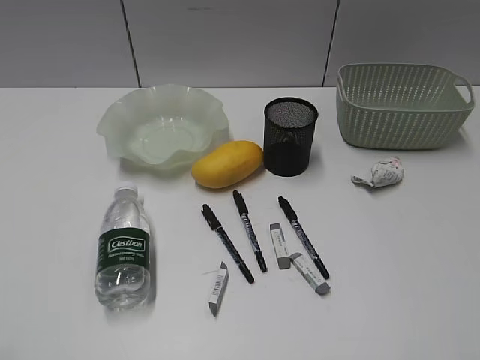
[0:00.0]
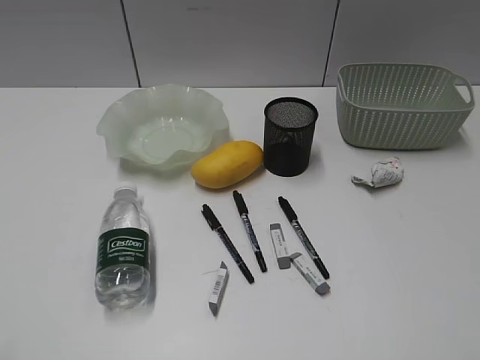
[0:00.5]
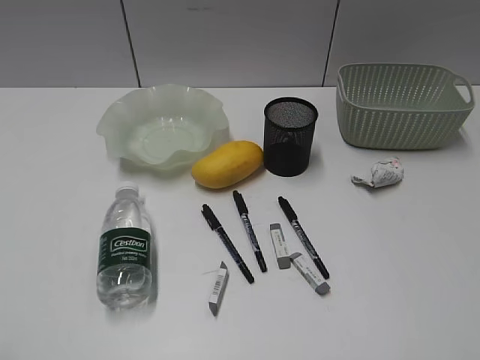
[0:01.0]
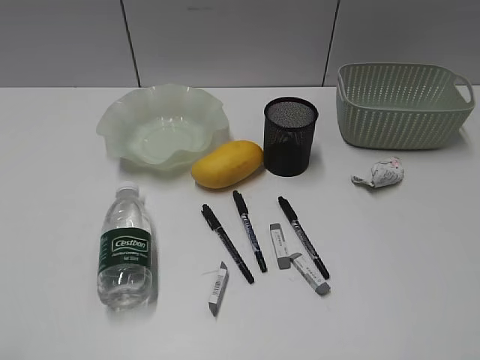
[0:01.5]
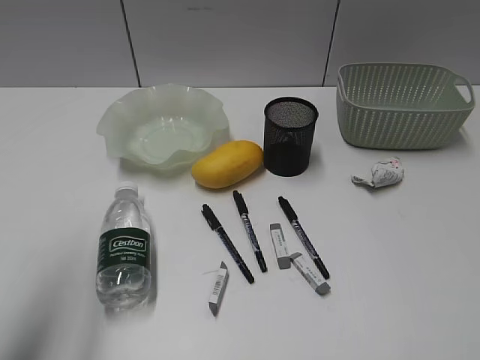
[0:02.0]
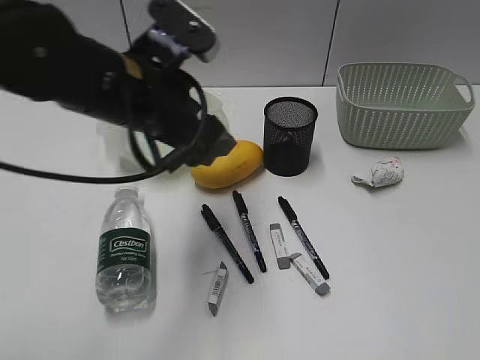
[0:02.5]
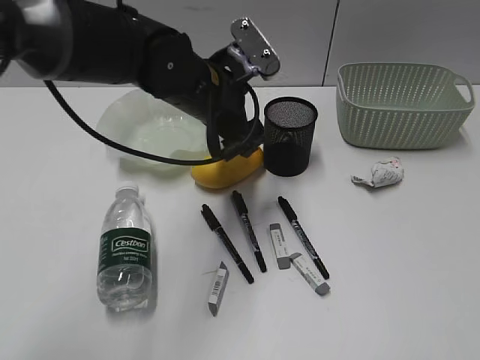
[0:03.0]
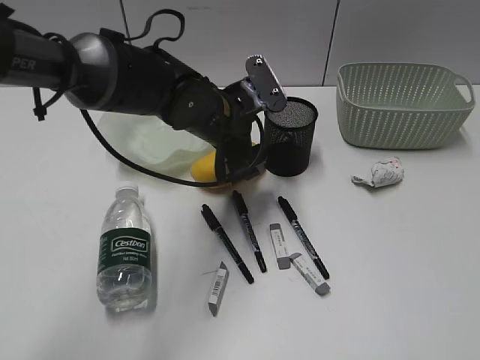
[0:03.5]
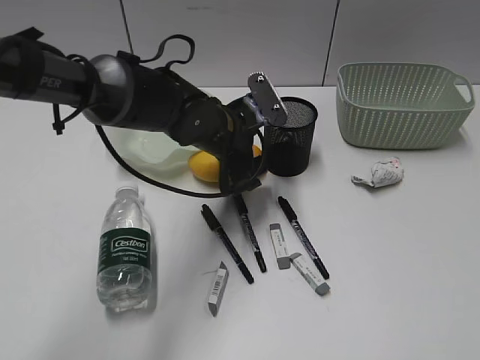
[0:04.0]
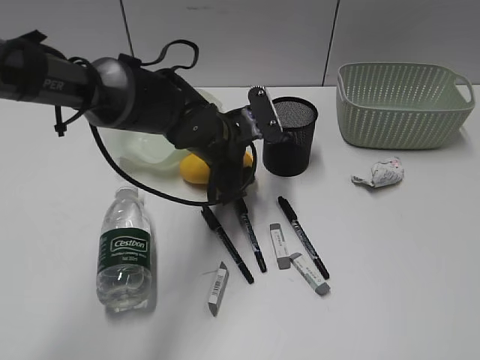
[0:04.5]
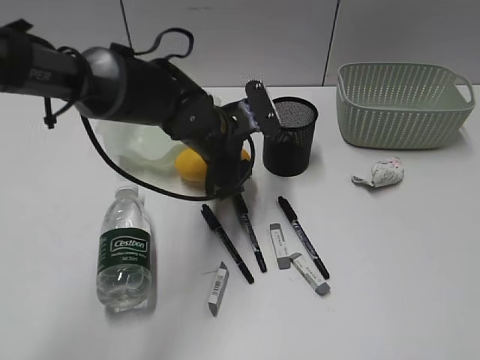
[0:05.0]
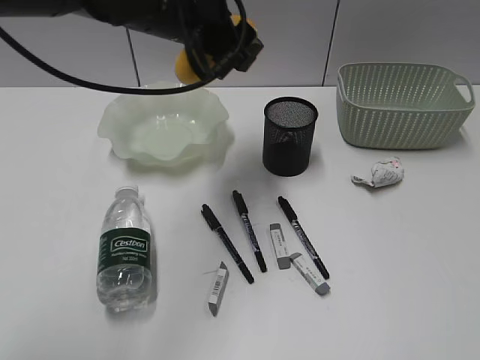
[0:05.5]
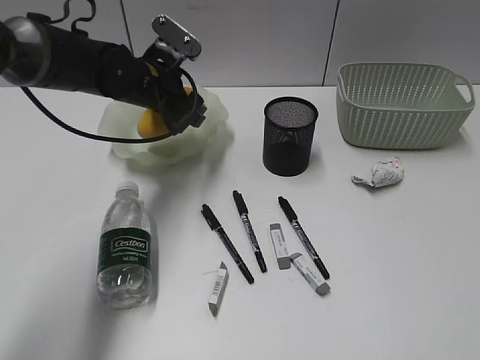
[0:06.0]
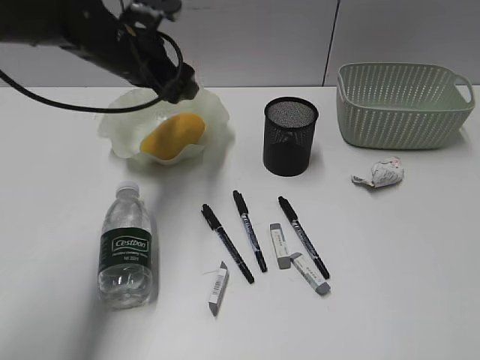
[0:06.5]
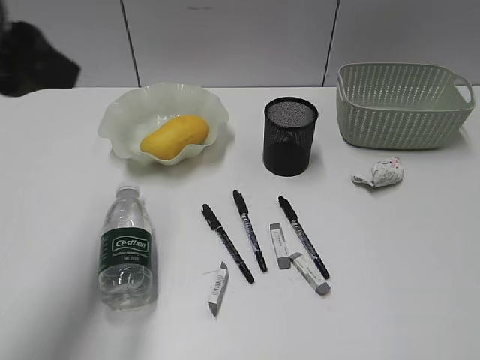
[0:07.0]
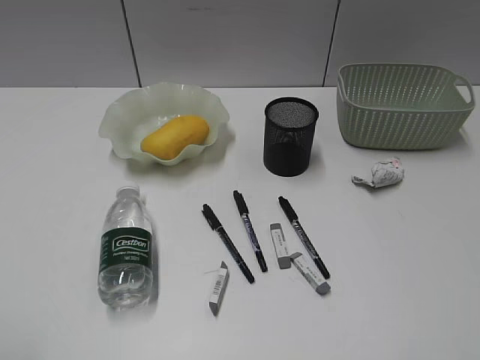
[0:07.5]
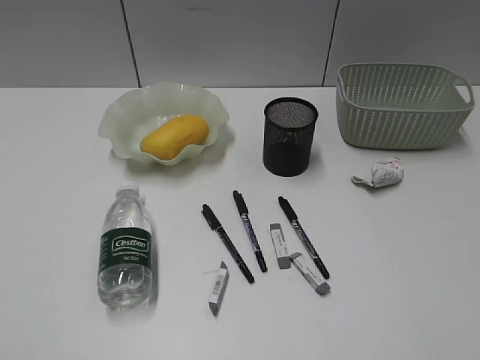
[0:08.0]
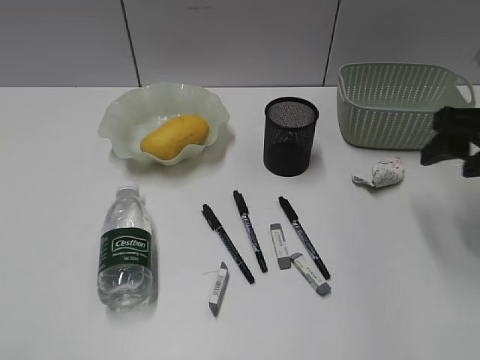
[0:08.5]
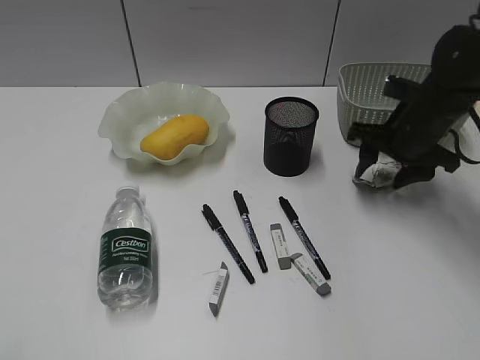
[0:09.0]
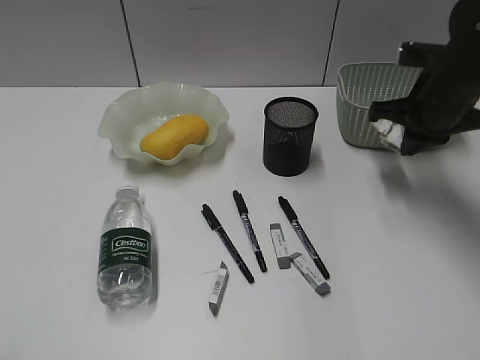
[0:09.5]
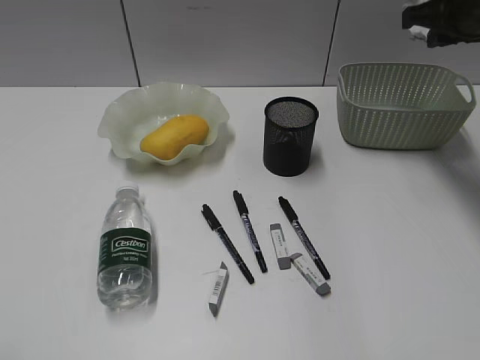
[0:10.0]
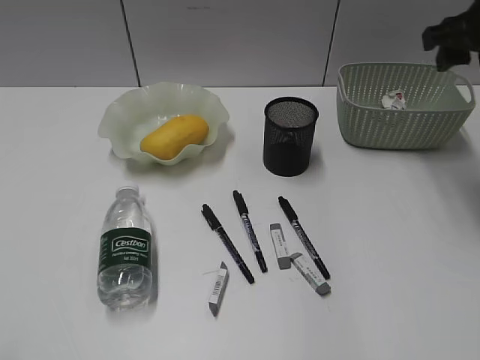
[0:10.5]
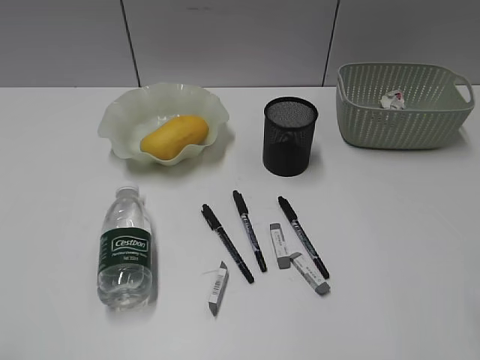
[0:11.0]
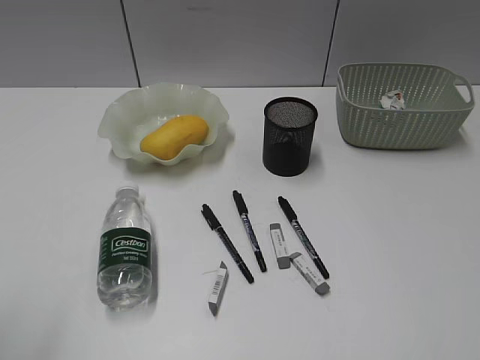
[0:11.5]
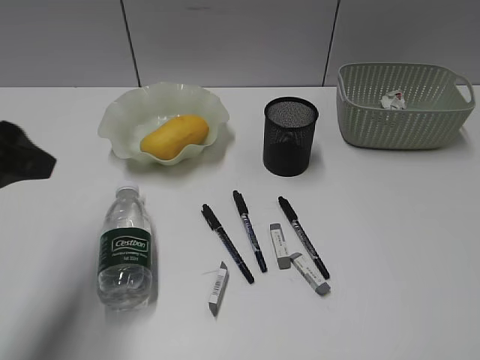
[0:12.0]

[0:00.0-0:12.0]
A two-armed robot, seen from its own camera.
Step, 0:02.0 to 0:04.5: Grasp the mango with left gripper.
Step, 0:05.0 to 0:06.0: Place the mango in the plate with left gripper.
Step, 0:06.5 to 0:09.0: Grasp the waste paper with right gripper.
Step, 0:09.5 to 0:10.0: Place the waste paper in the basket with right gripper.
0:02.0 to 0:04.0: The left gripper is displaced to the right, forward and downward by approximately 40 cm.
0:04.0 to 0:06.0: The left gripper is displaced to the left and forward by about 10 cm, and travels upward and back again, approximately 15 cm each way.
0:06.0 to 0:08.0: The left gripper moves backward and to the left, some 50 cm.
0:08.0 to 0:10.0: The right gripper shifts approximately 40 cm forward, and closes its fingers.
0:10.0 to 0:12.0: The left gripper shifts about 20 cm forward and to the right, while the right gripper goes roughly 40 cm backward, and opens its fingers.

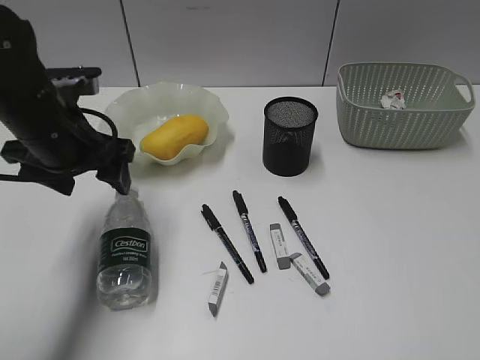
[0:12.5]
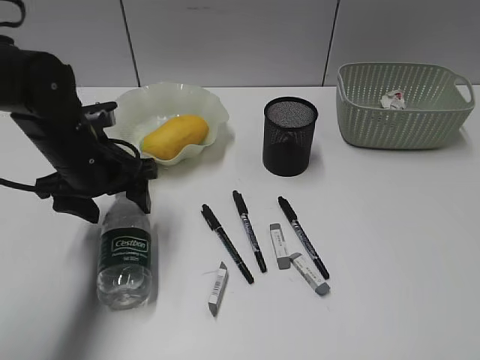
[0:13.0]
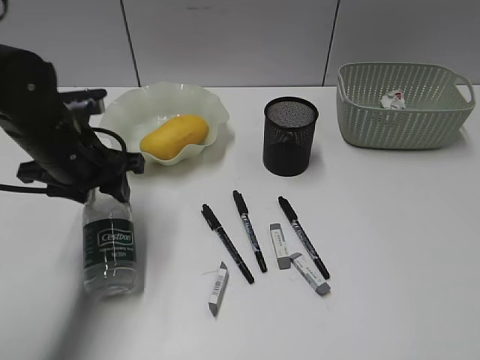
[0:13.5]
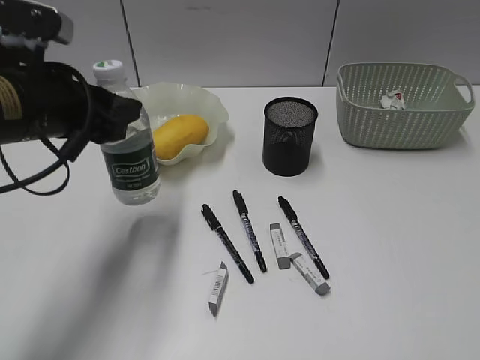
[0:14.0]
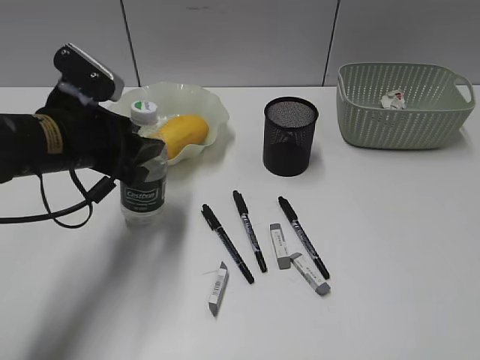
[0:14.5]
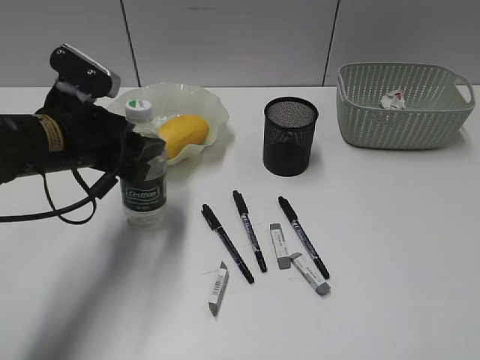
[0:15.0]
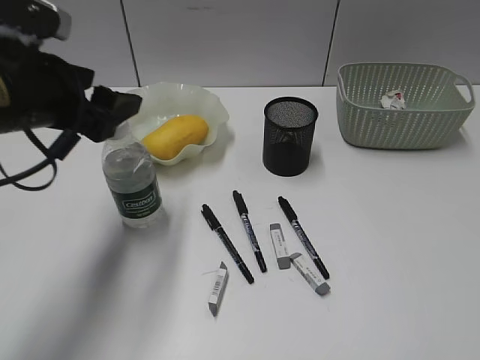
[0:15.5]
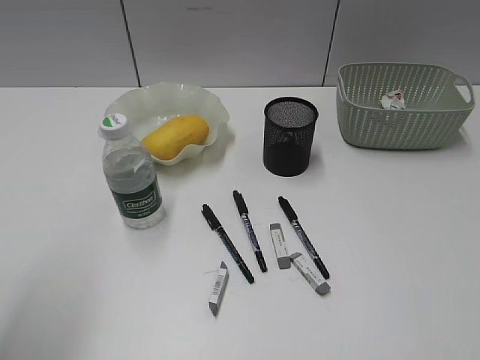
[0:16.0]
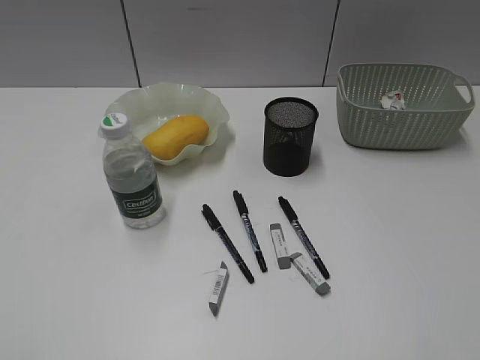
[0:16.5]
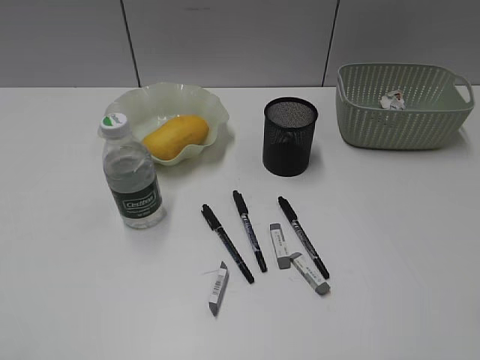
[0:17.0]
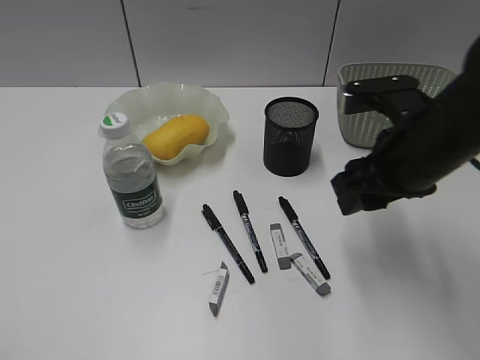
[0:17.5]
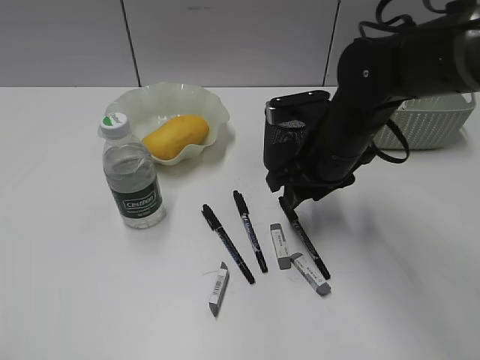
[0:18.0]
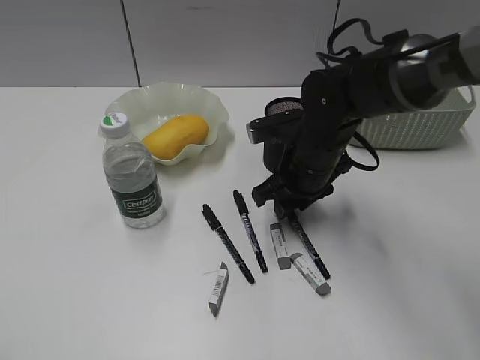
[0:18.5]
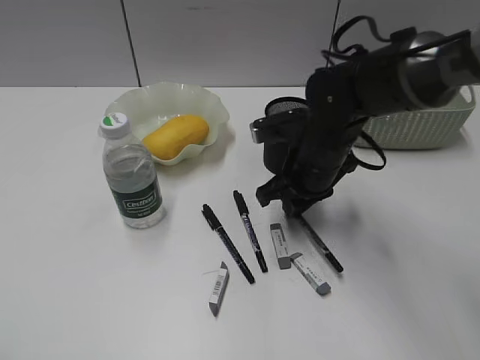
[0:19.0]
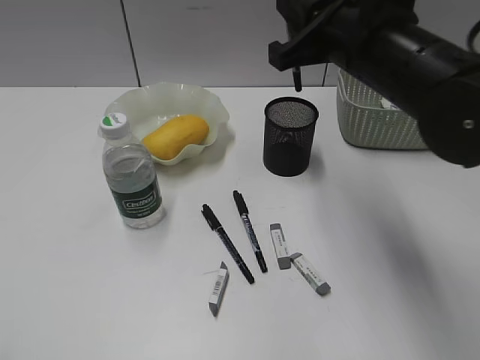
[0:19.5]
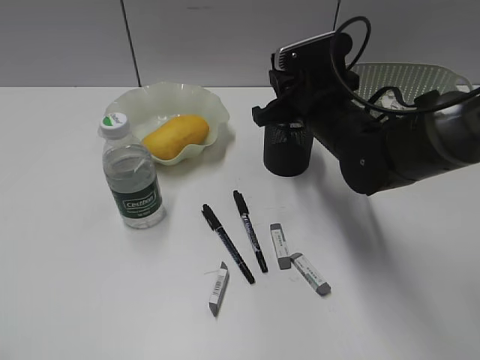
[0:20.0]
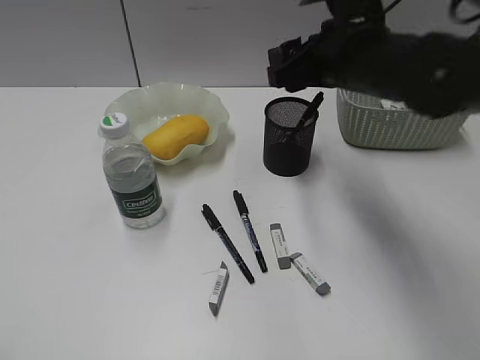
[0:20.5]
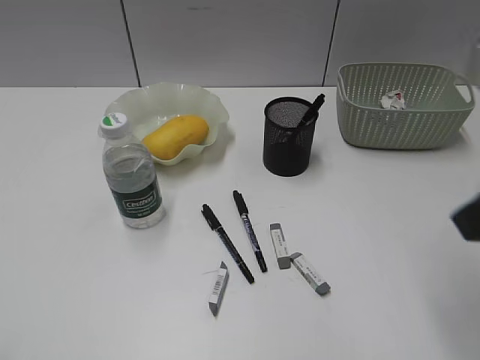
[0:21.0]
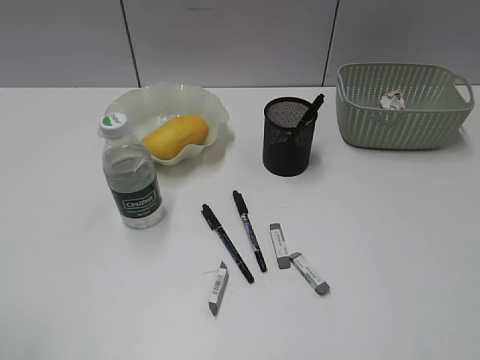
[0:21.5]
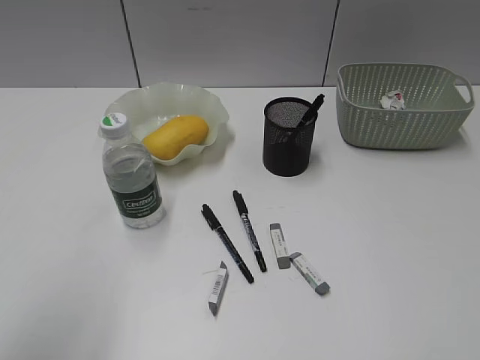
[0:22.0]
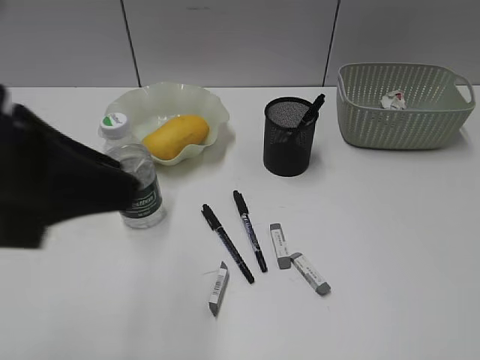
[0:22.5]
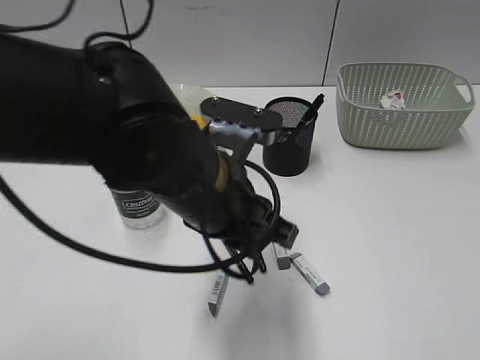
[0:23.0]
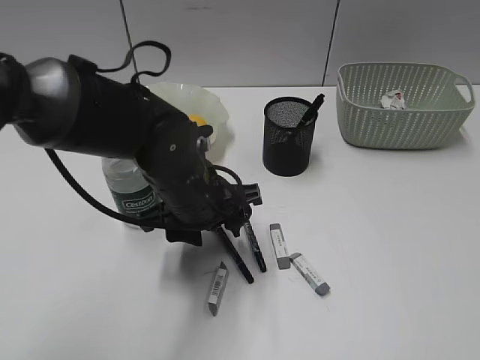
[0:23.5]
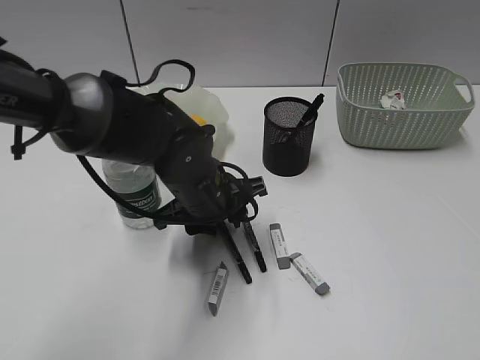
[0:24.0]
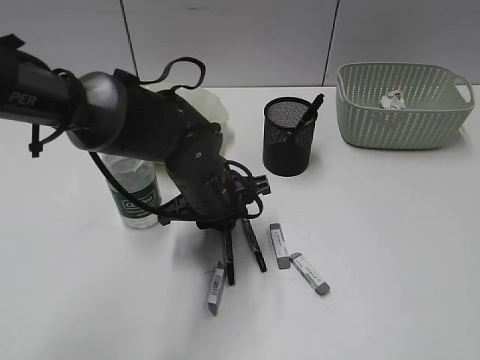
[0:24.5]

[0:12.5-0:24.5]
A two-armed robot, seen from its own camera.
Step, 0:13.5 to 0:15.0: Stand the bottle with left gripper.
Step, 0:15.5 to 0:18.5: Grasp the black pen with right gripper.
Step, 0:19.0 to 0:20.0: Place the black pen in pen holder with right gripper.
0:12.5 to 0:14.5: The left gripper swings up and down, some 10 cm each way, with 2 reversals, and closes up.
0:14.5 to 0:16.5: The left gripper goes some 35 cm backward and to the left.
0:16.5 to 0:18.5: The right gripper goes about 40 cm forward, to the left and downward.
0:18.5 to 0:20.5: The right gripper goes up and down, approximately 15 cm each way, reversing 2 times, and opens.
0:20.5 to 0:22.5: The right gripper travels backward and to the right by roughly 40 cm, and closes up. The left gripper goes approximately 20 cm to the right and forward.
0:22.5 to 0:24.5: The left gripper goes roughly 30 cm downward, forward and to the right, and opens, then closes again.

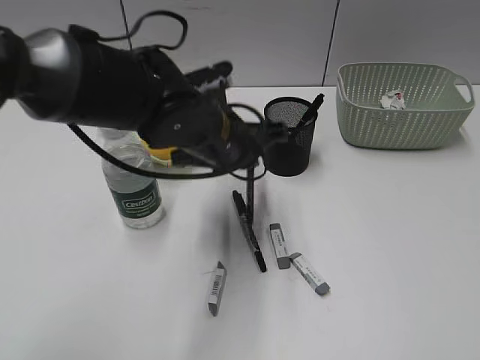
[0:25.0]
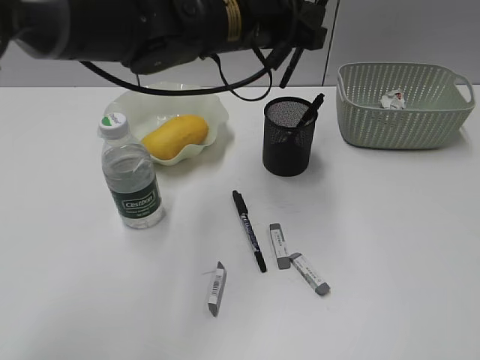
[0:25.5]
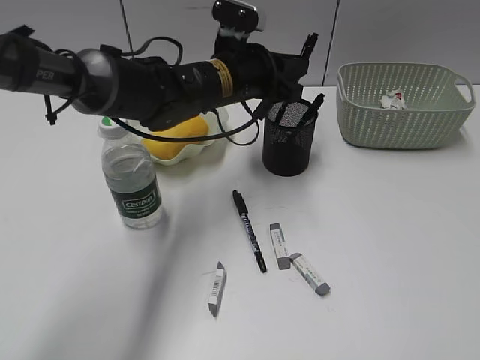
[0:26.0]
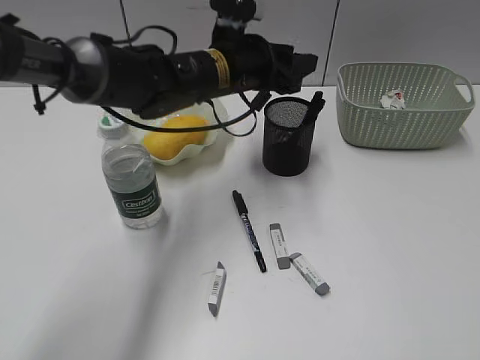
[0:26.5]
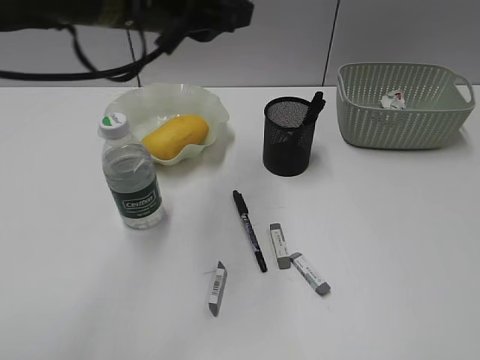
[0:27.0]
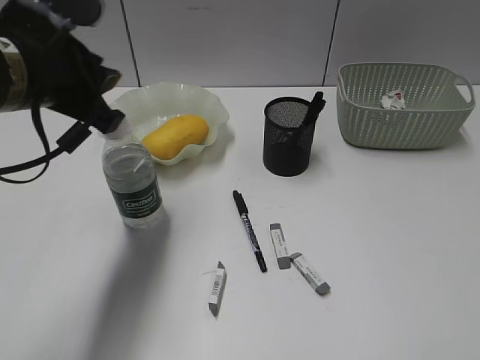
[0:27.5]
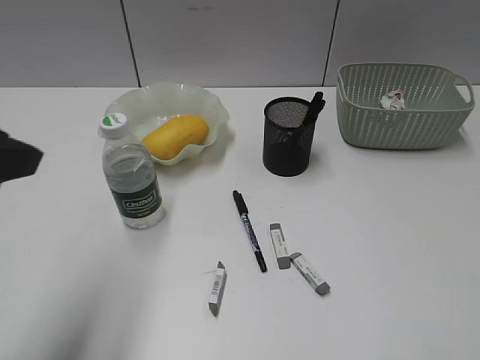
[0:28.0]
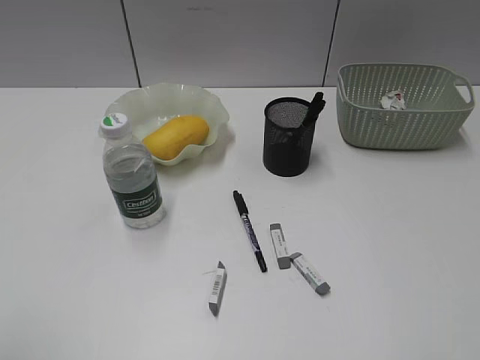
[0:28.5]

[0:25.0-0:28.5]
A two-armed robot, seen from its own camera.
Step, 0:25.0 to 0:26.0: Place the black pen in pen holder with left gripper.
0:25.0 to 0:27.0: The left gripper swings up and down, roughly 15 cm each way, with 2 reversals.
0:27.0 to 0:28.5: The left gripper shifts about 35 cm backward and to the left, and opens.
